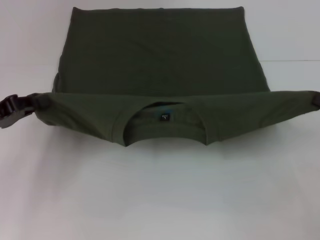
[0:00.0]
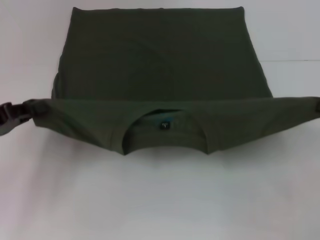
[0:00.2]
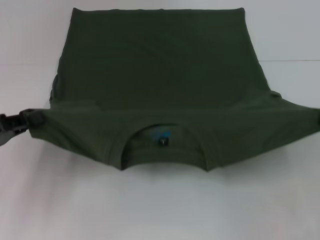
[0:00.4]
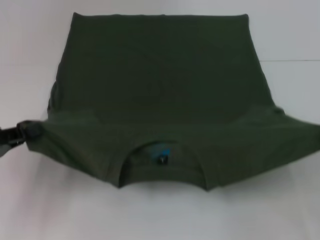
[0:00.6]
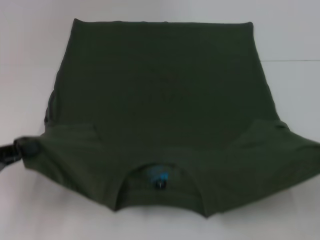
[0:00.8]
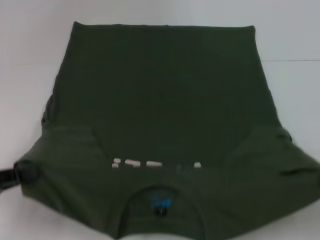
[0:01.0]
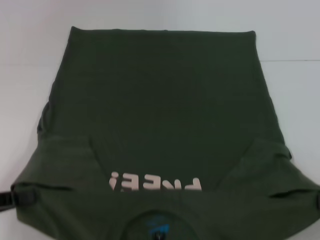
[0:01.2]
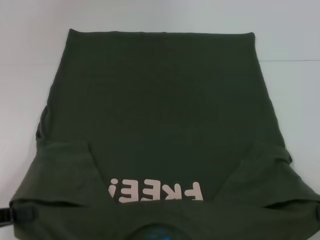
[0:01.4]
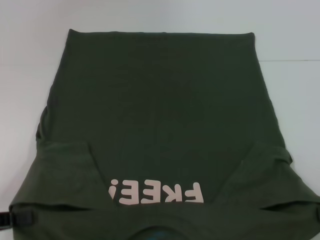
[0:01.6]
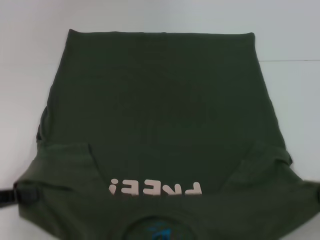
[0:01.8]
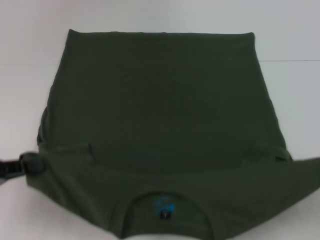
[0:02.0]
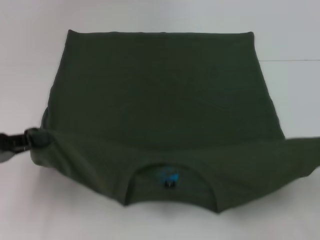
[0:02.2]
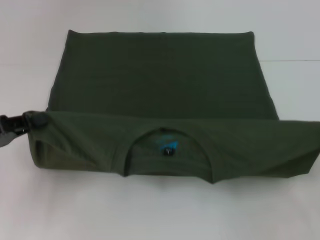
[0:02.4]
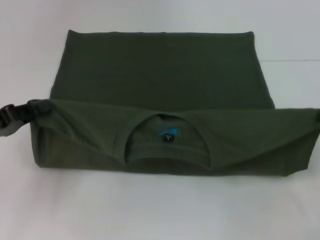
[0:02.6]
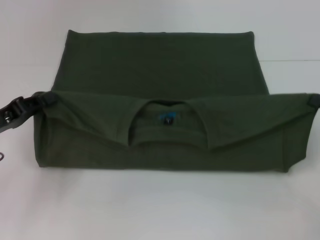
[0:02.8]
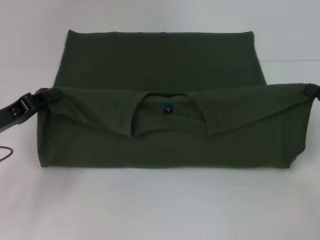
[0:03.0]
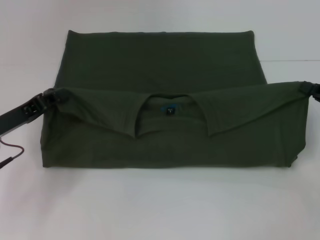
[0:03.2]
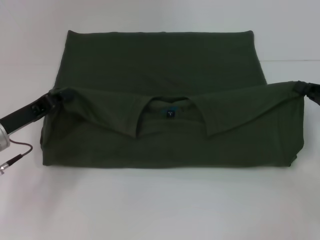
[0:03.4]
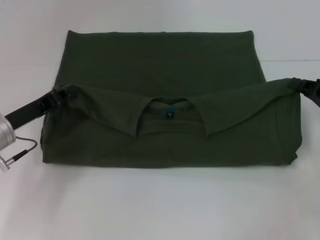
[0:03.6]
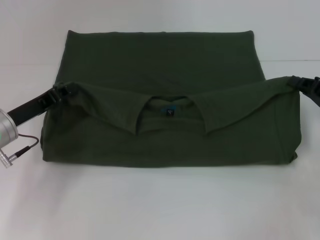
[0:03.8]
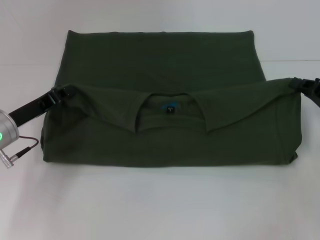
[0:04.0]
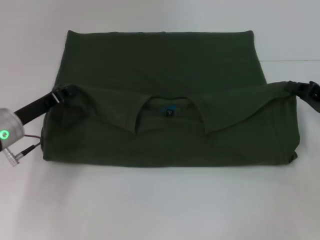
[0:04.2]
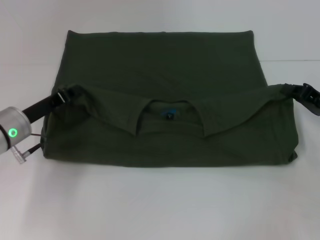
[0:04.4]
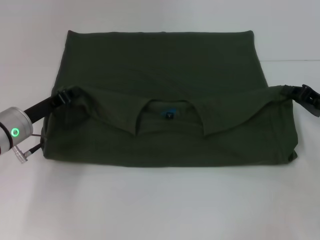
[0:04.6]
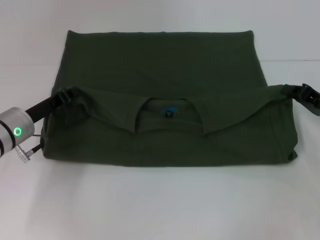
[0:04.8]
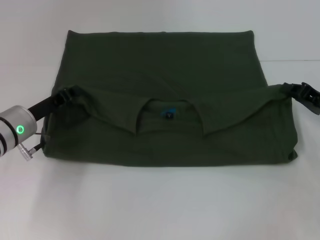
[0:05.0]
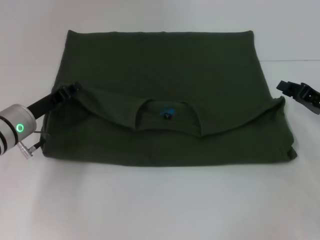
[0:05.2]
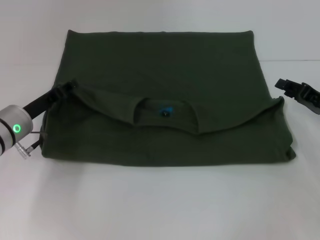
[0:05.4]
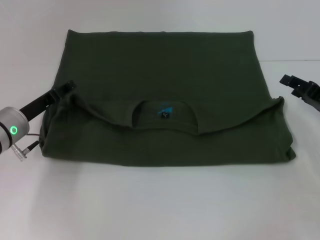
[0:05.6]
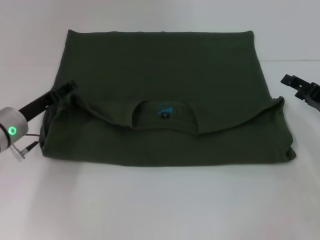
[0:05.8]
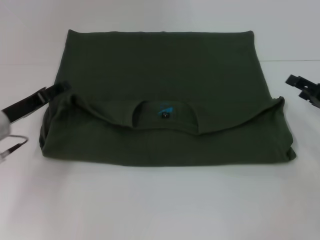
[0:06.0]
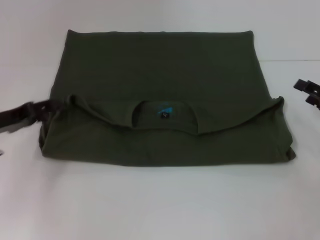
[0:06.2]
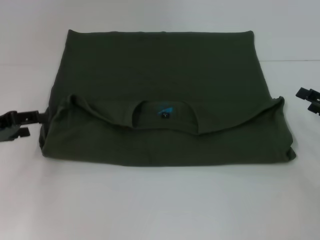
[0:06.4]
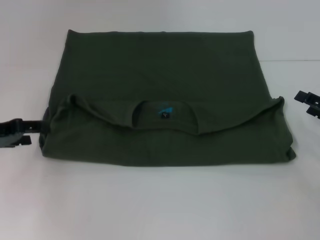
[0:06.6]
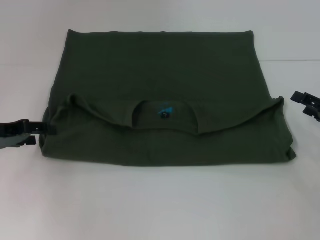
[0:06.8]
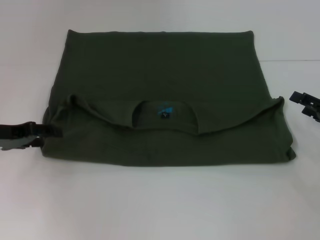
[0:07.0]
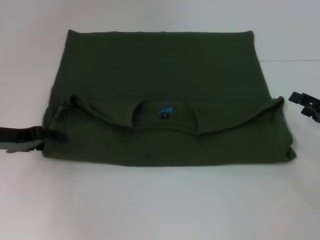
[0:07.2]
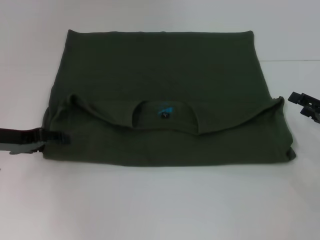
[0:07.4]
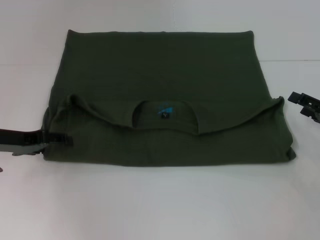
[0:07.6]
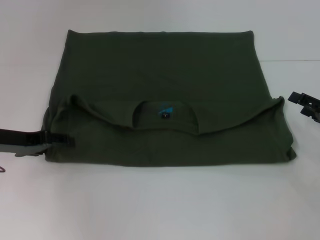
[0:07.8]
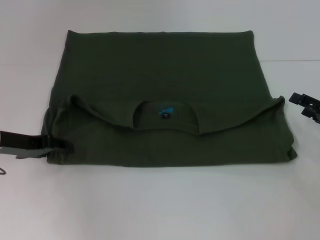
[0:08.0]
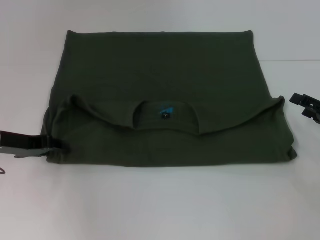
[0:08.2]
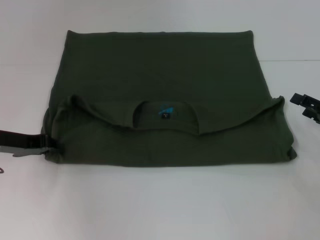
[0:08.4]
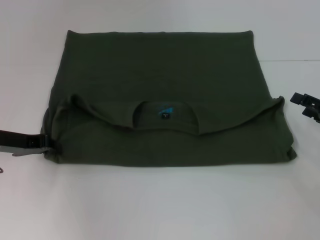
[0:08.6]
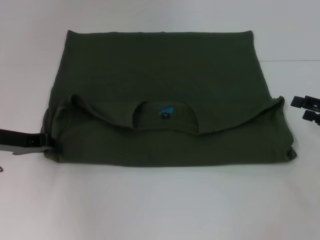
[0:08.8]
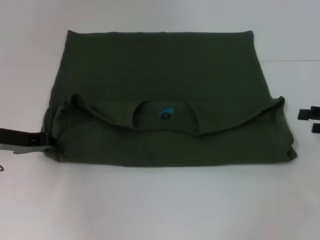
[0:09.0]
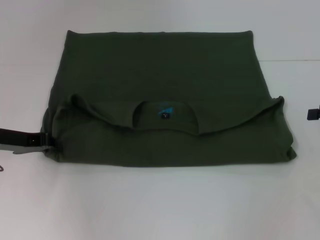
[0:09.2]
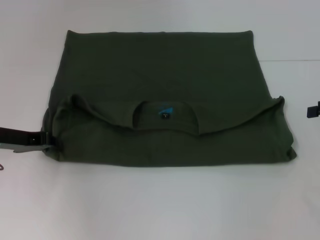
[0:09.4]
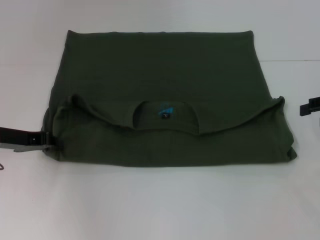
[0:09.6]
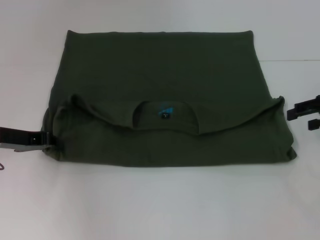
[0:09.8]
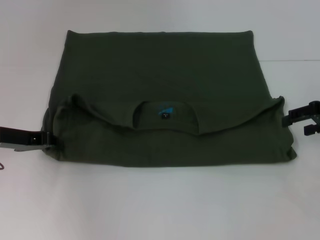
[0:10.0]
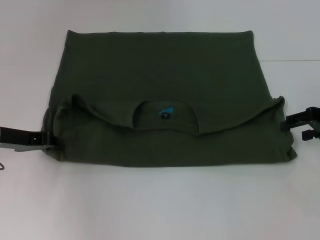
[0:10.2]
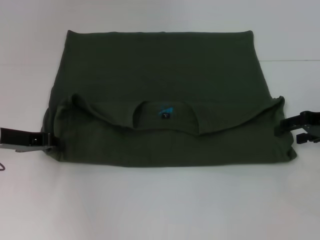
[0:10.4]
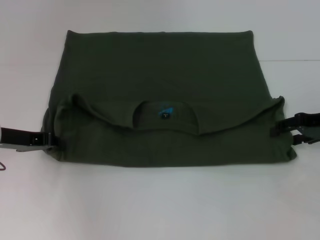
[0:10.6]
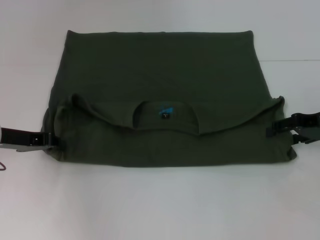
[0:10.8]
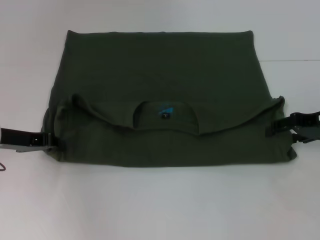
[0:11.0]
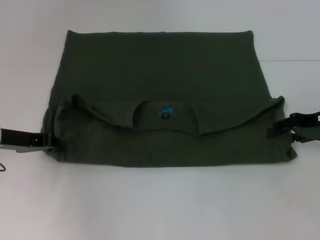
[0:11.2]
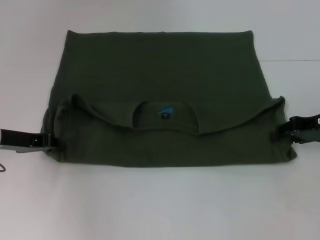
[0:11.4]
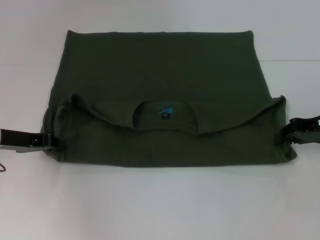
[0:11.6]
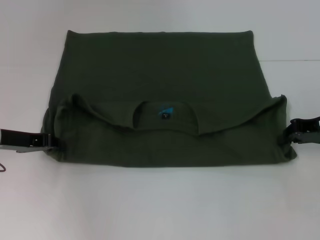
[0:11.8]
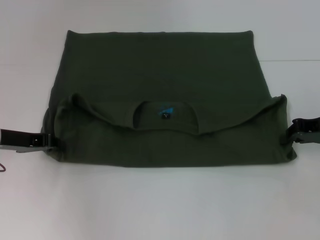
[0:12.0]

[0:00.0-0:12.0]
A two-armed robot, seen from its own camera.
Step, 0:00.0 to 0:05.0: Fold the clothes with your right hand.
Step, 0:05.2 to 0:05.6: Fold the clothes with your left hand.
0:00.0 to 0:01.6: The right gripper is displaced backward by some 5 cm. Meanwhile the left gripper heads backward, covering some 10 cm.
0:01.6 to 0:03.0: The right gripper is displaced forward by roughly 10 cm, while the left gripper is displaced forward and to the right by about 15 cm.
0:03.0 to 0:04.4: The right gripper changes place by roughly 5 cm. The left gripper travels to the right by approximately 5 cm.
0:04.4 to 0:06.0: The right gripper opens up. Meanwhile the left gripper opens its fingers.
0:07.6 to 0:09.0: The right gripper moves upward, some 5 cm. The left gripper closes up.
0:09.0 to 0:10.4: The right gripper is displaced to the left and forward by approximately 5 cm.
0:10.4 to 0:12.0: The right gripper closes.

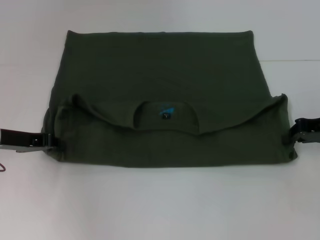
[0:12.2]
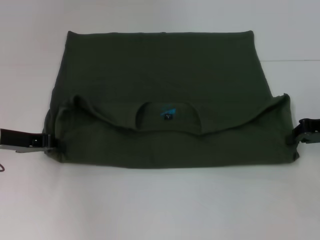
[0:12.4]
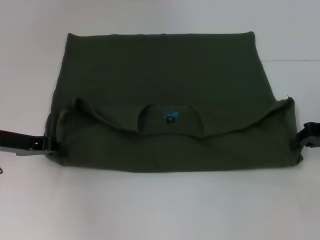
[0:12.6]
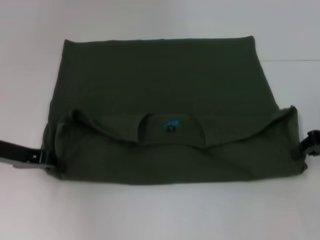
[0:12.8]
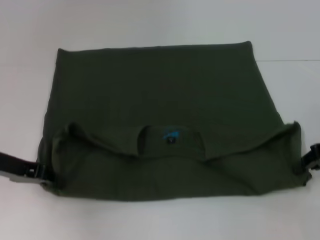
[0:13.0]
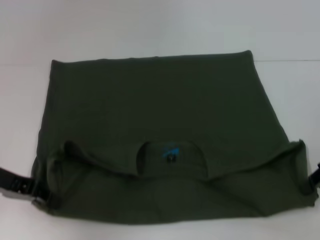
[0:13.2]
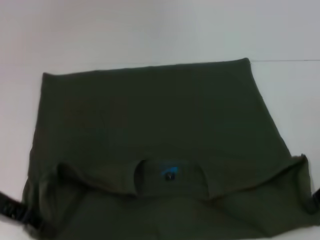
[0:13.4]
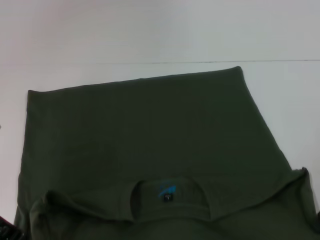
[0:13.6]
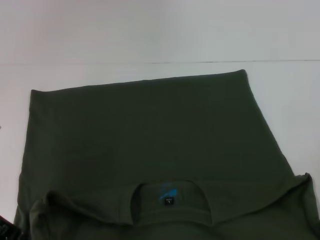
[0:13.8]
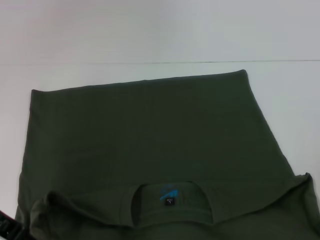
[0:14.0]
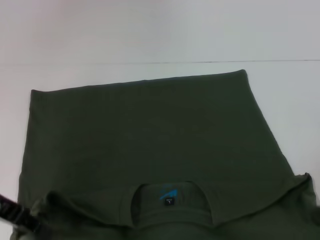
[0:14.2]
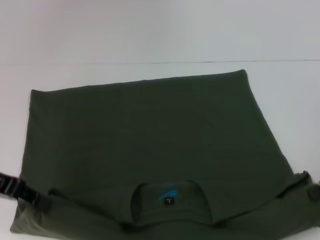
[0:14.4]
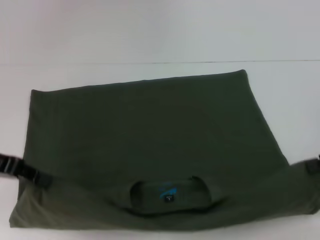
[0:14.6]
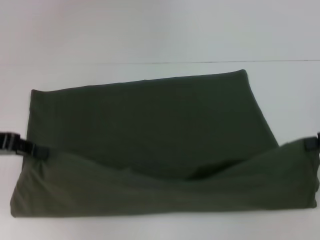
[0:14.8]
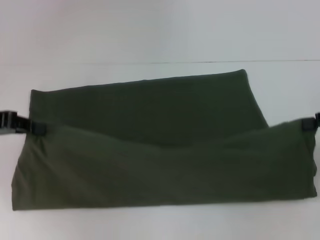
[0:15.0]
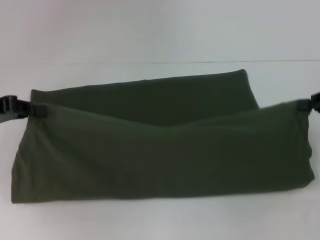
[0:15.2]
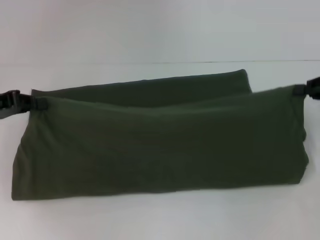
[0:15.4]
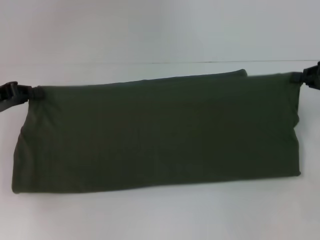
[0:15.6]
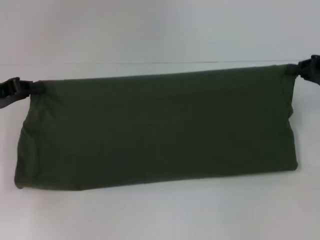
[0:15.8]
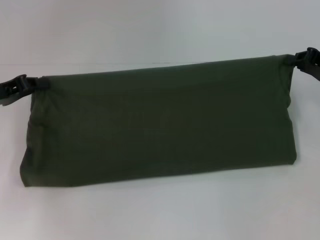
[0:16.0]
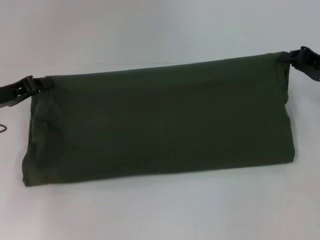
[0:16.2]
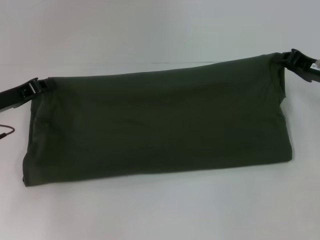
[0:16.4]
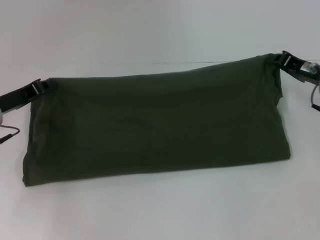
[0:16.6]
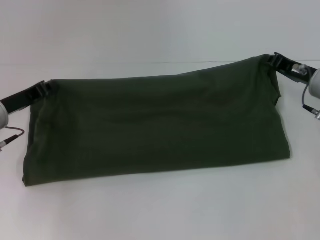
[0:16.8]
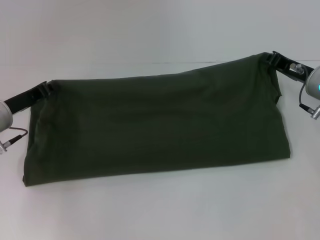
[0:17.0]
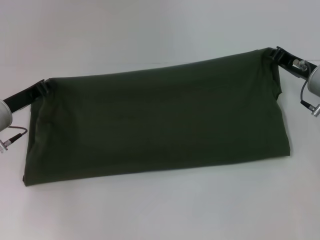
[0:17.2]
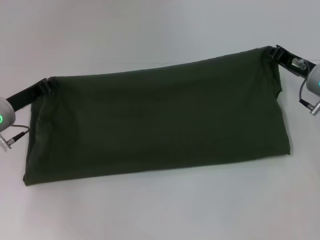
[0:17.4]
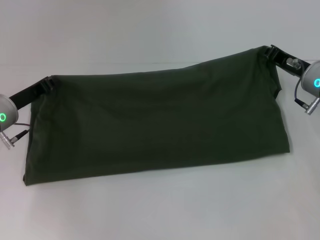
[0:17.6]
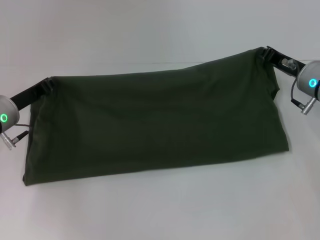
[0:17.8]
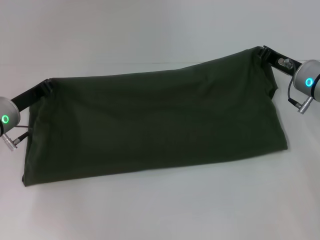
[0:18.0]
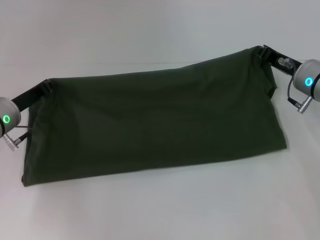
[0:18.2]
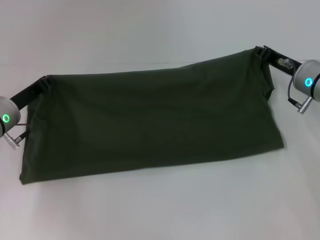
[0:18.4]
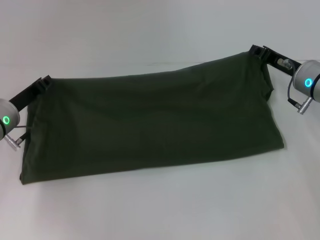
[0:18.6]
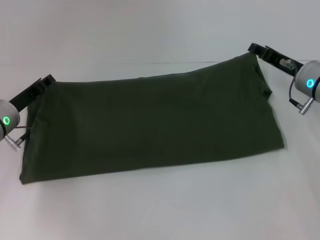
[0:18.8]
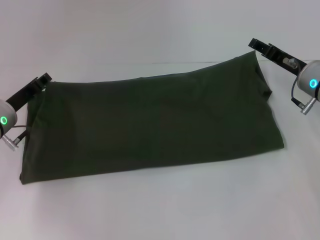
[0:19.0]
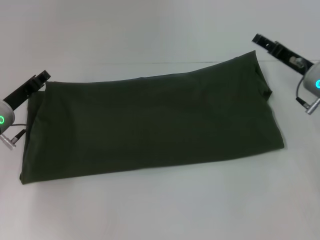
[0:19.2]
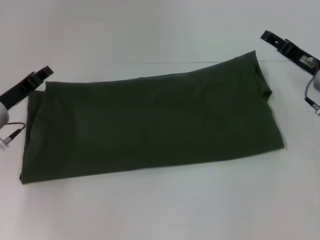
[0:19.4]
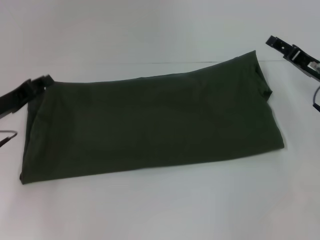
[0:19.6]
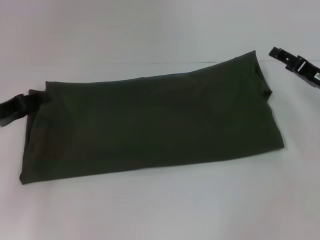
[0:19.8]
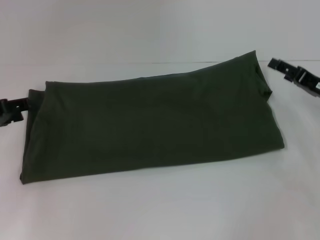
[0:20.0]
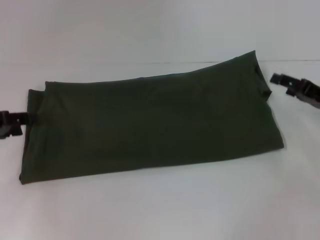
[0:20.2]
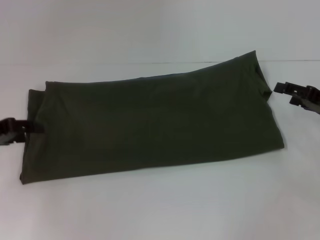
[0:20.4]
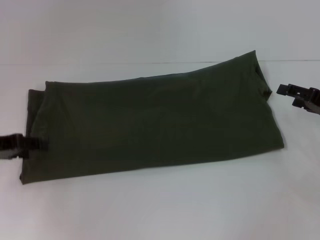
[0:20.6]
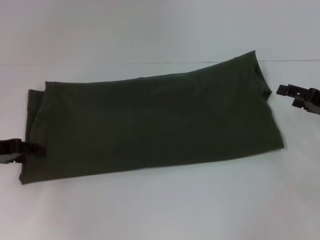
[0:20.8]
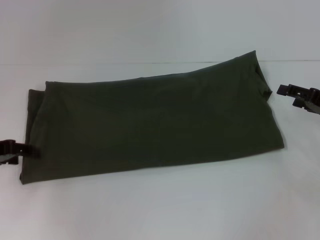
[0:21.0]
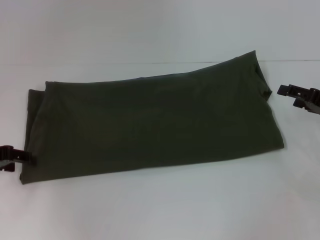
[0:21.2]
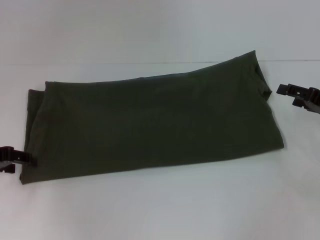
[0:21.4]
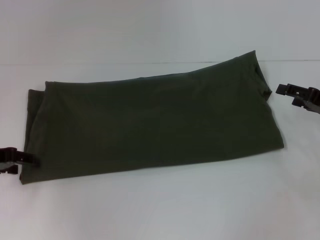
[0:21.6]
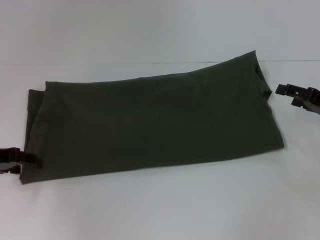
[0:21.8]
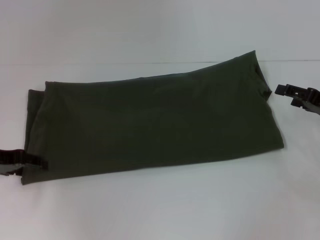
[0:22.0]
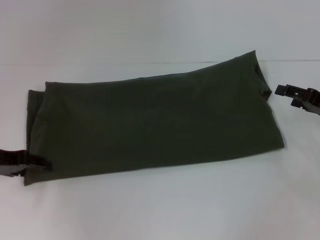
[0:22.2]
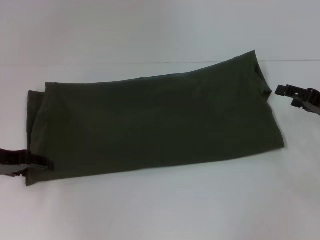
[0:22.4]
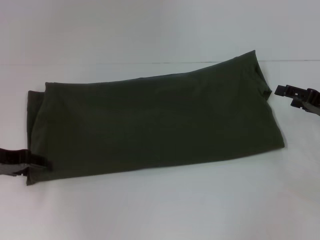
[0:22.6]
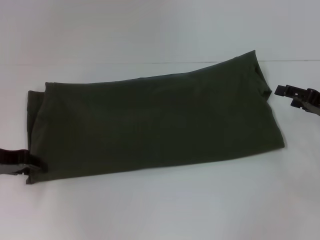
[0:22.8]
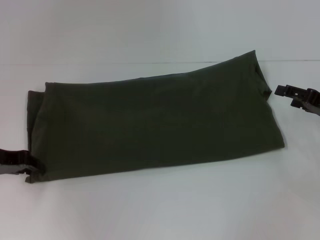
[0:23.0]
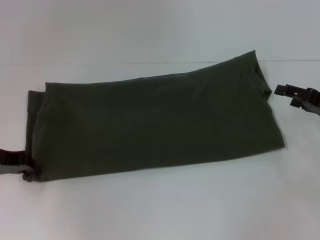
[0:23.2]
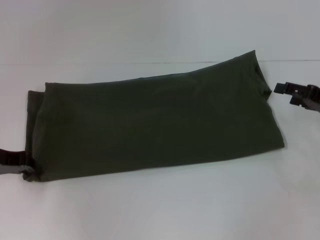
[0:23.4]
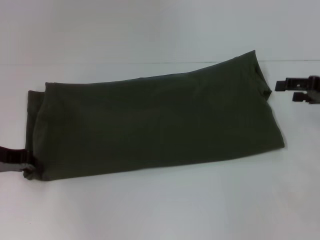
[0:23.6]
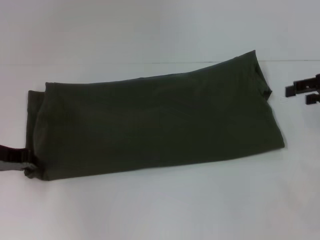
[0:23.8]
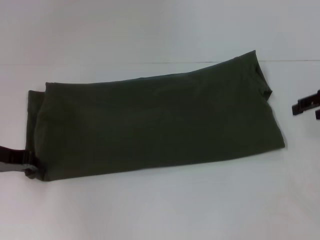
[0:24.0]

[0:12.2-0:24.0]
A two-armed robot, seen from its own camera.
Step, 0:12.2 to 0:14.2: Pull the clothes with your left hand.
Step, 0:12.2 to 0:14.2: Pull the clothes with your right hand.
Step, 0:14.4 to 0:18.8: Fold the clothes with your left hand.
Step, 0:14.4 to 0:18.8: Fold the clothes with your right hand.
0:12.2 to 0:13.6: The grippers both shift backward by roughly 5 cm.
0:13.6 to 0:15.2: The right gripper ends up some 5 cm from where it was. Meanwhile the left gripper heads forward and to the left, covering some 5 cm.
0:15.2 to 0:16.6: The left gripper heads downward, covering approximately 10 cm. The right gripper goes approximately 10 cm to the left and downward.
0:16.6 to 0:18.2: The grippers make only small movements.
0:18.2 to 0:19.6: The left gripper opens its fingers, while the right gripper changes place by some 5 cm, and opens its fingers.
0:19.6 to 0:21.0: The left gripper shifts by roughly 5 cm, while the right gripper heads to the right, covering about 5 cm.
0:21.0 to 0:22.6: The grippers stay close to where they were, moving slightly.
0:22.6 to 0:24.0: The right gripper is displaced upward by some 10 cm.
